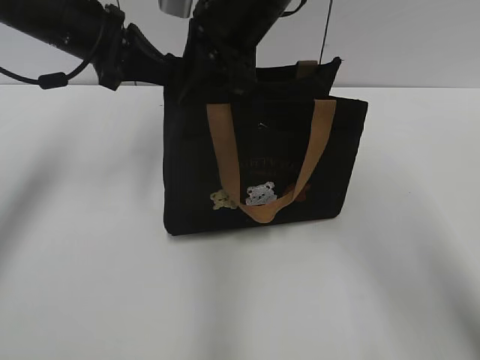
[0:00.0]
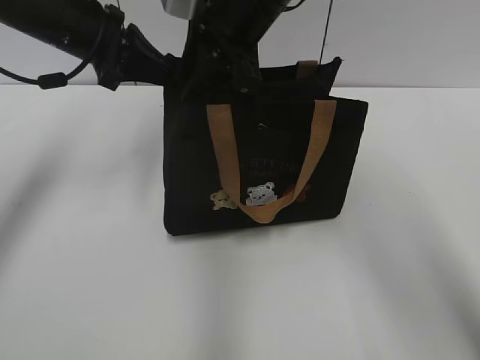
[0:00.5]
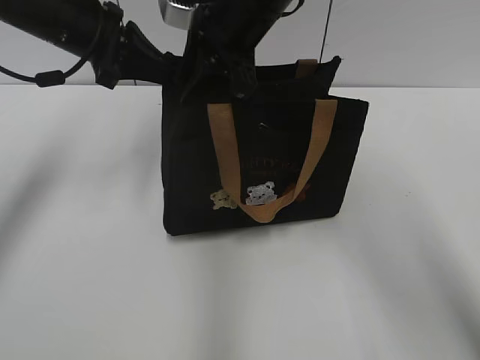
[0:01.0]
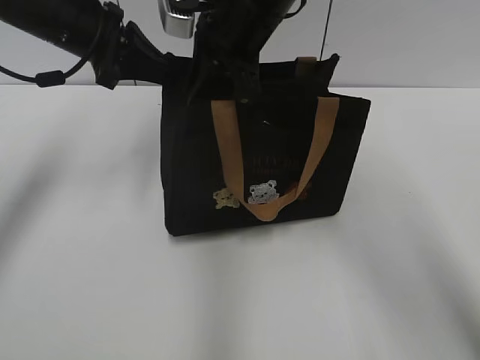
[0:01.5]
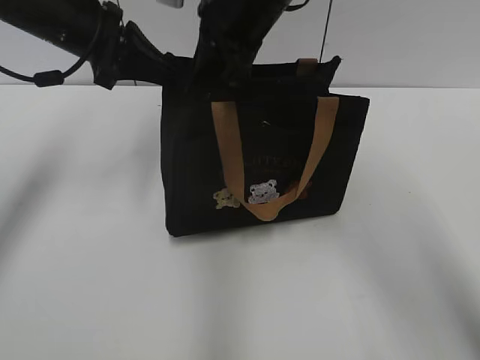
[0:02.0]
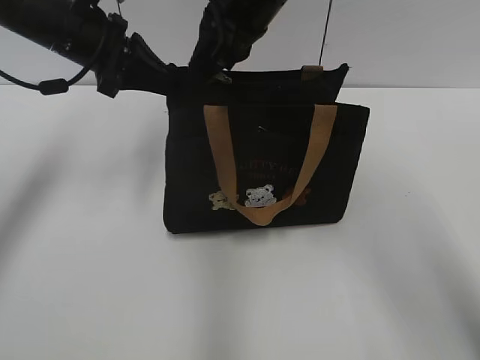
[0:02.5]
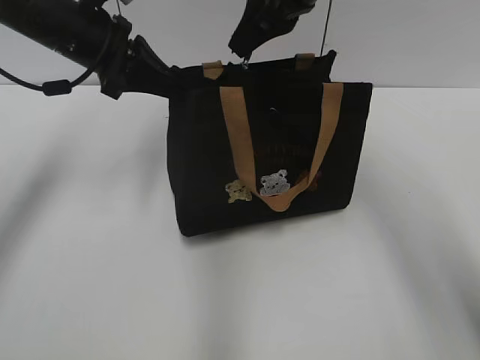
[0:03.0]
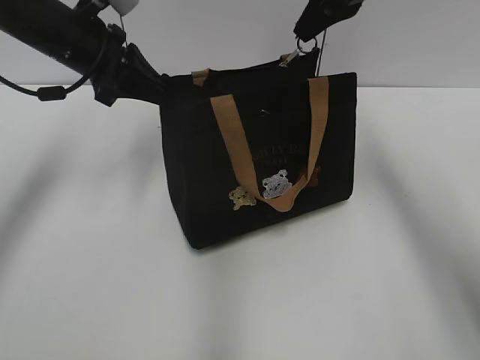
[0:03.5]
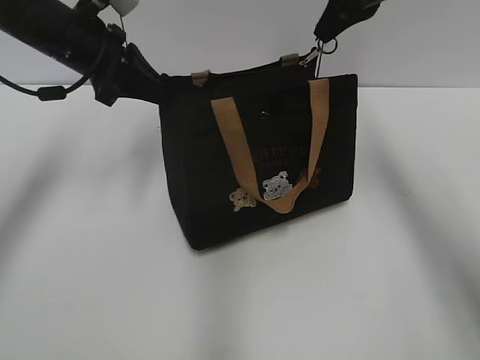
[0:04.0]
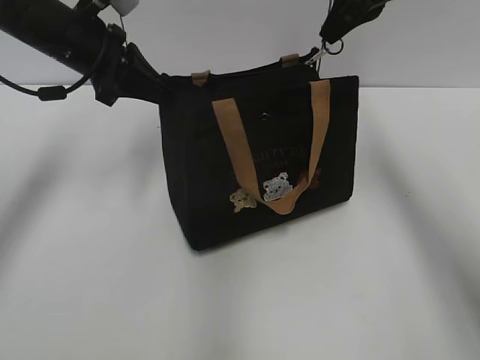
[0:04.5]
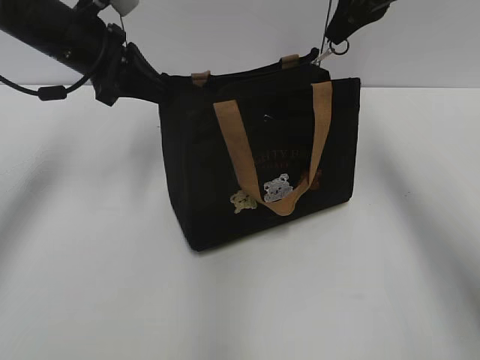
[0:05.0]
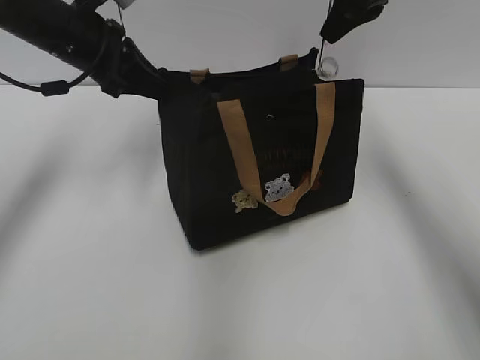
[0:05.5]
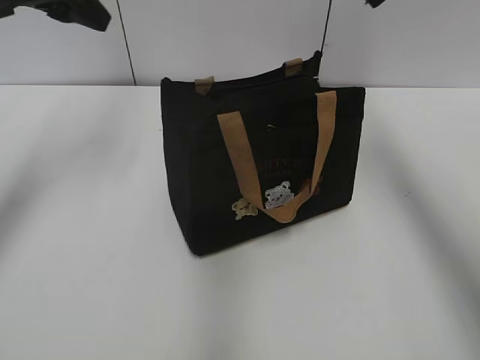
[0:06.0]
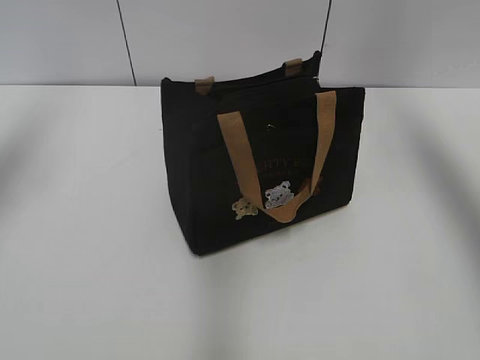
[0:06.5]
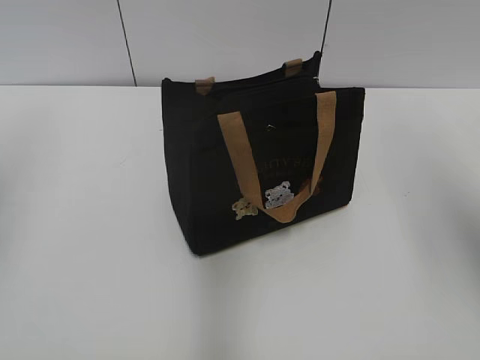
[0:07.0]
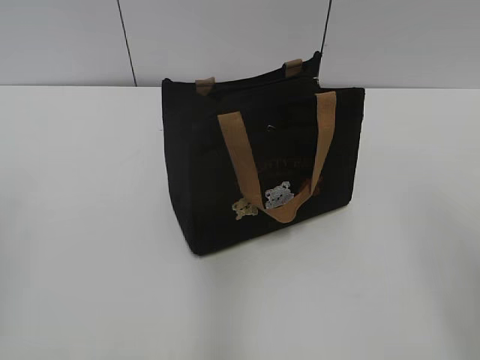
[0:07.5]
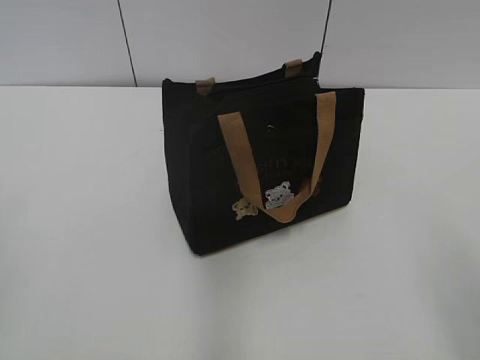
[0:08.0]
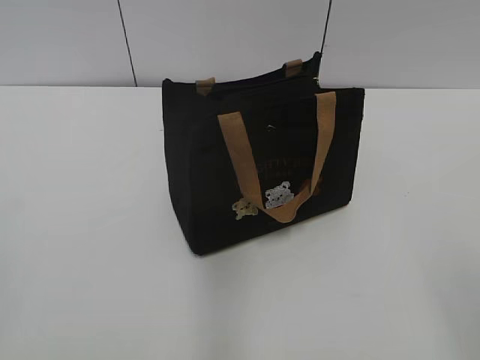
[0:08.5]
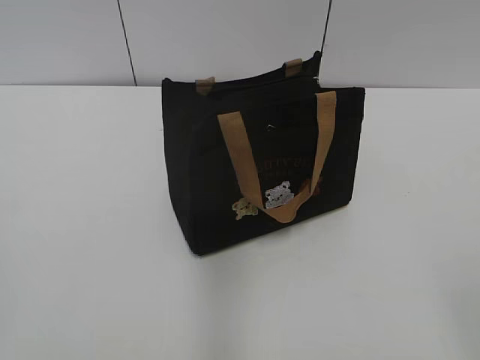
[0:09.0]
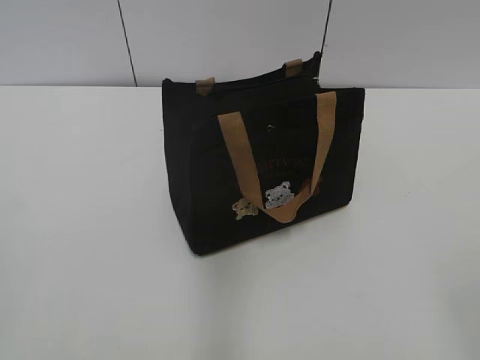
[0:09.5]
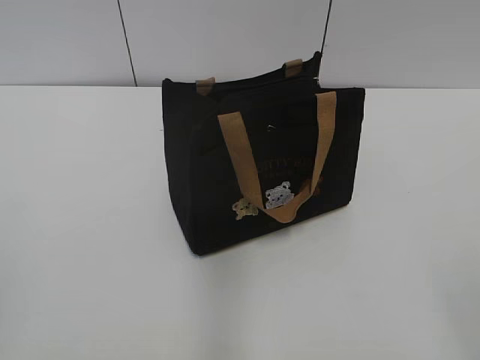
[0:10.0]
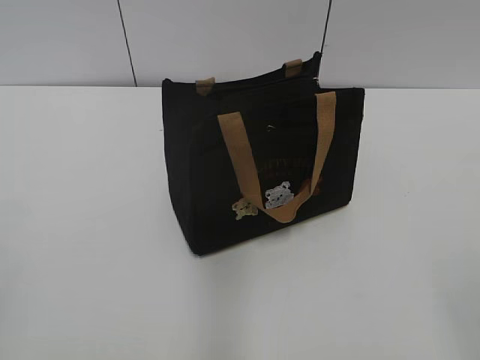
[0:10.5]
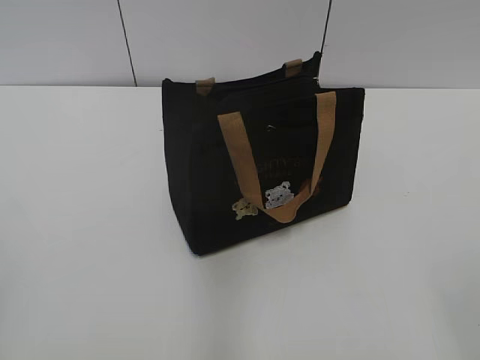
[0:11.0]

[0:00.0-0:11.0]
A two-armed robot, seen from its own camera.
Step, 0:00.0 to 0:05.0: Pull open the zipper with your right hand.
0:00.0 to 0:02.0: The right gripper closes up.
0:02.0 to 0:03.5: The right gripper goes approximately 10 cm to the right.
0:03.5 to 0:05.5: The grippers move only a little.
0:05.5 to 0:07.5: The two grippers go roughly 30 cm backward. The right gripper opens up. The left gripper opens its fingers.
